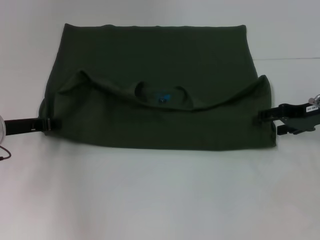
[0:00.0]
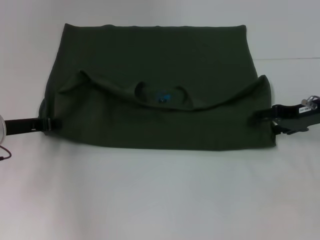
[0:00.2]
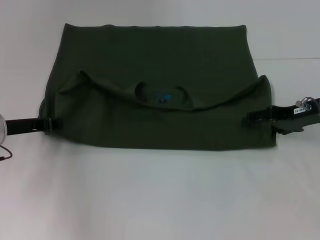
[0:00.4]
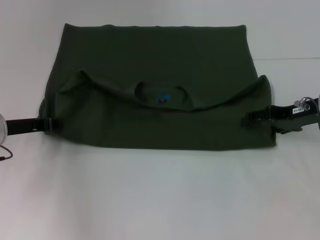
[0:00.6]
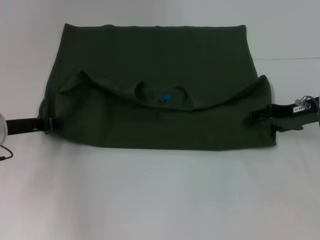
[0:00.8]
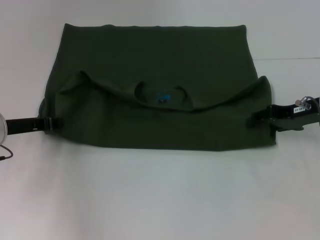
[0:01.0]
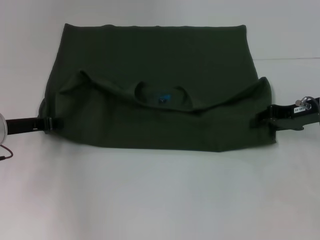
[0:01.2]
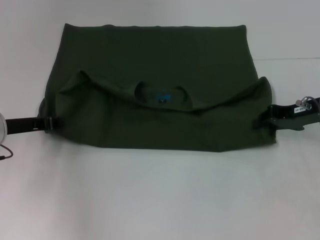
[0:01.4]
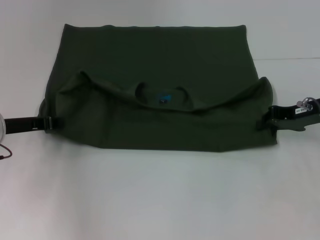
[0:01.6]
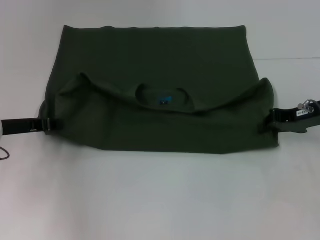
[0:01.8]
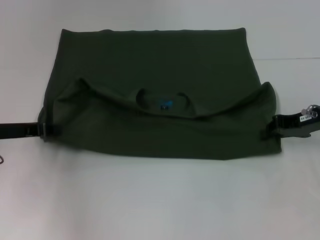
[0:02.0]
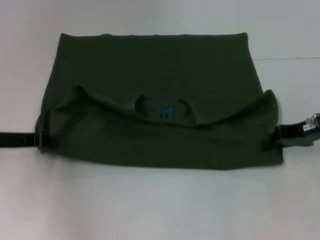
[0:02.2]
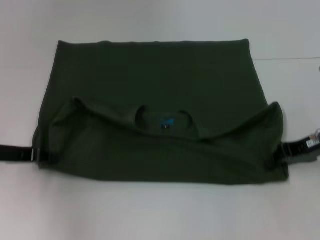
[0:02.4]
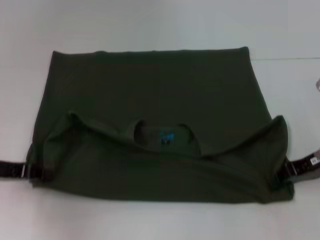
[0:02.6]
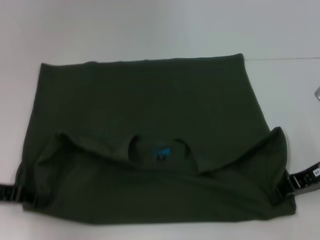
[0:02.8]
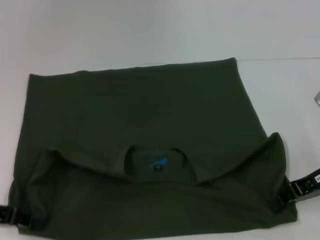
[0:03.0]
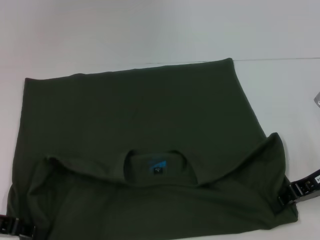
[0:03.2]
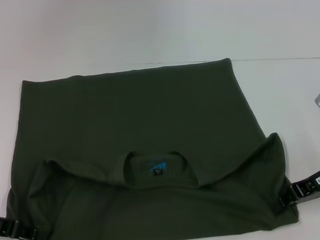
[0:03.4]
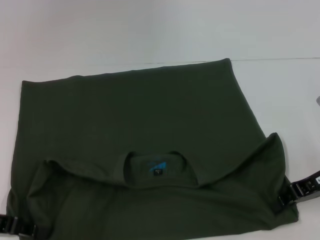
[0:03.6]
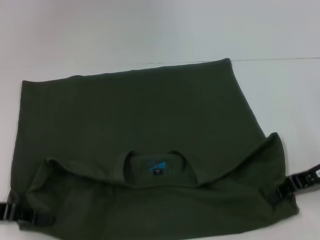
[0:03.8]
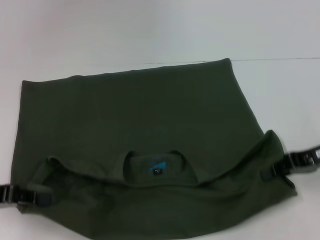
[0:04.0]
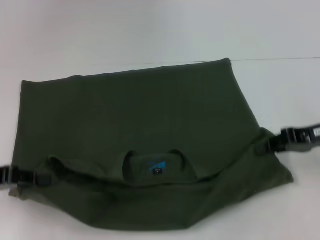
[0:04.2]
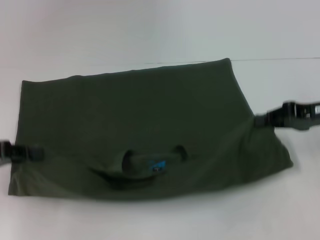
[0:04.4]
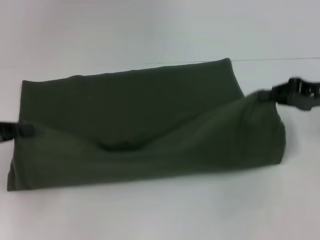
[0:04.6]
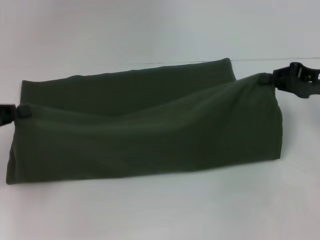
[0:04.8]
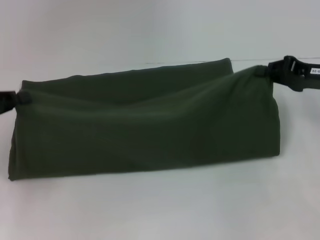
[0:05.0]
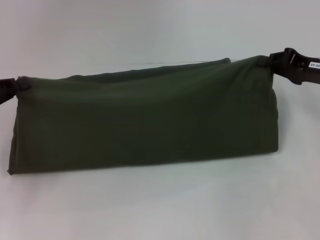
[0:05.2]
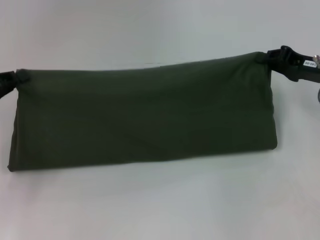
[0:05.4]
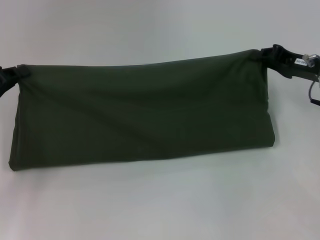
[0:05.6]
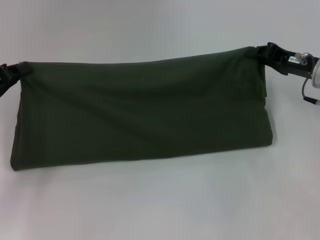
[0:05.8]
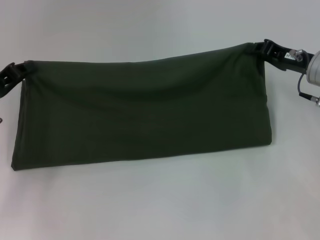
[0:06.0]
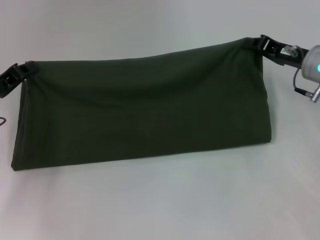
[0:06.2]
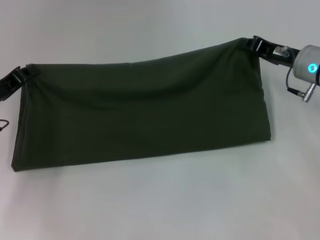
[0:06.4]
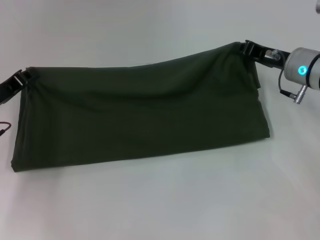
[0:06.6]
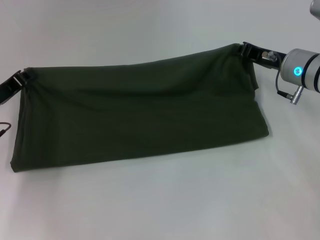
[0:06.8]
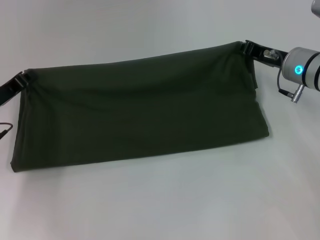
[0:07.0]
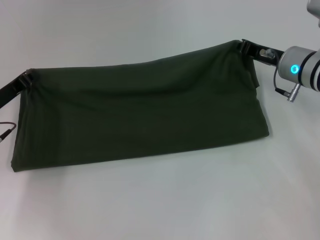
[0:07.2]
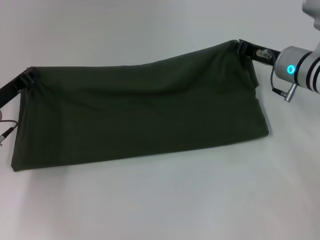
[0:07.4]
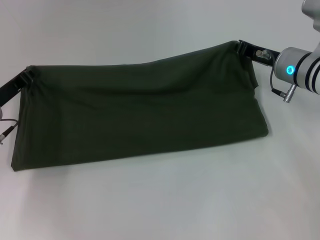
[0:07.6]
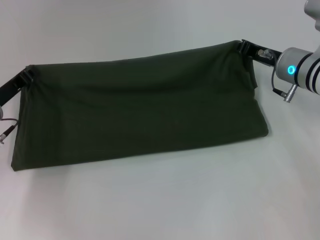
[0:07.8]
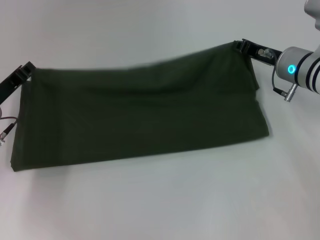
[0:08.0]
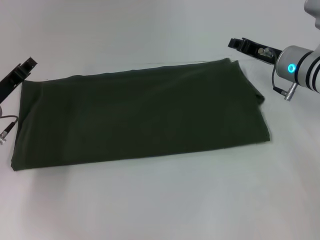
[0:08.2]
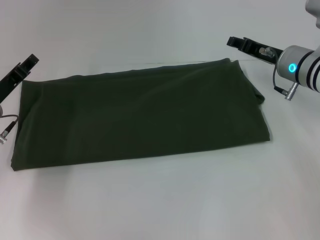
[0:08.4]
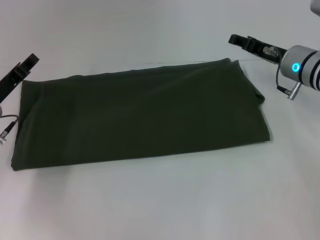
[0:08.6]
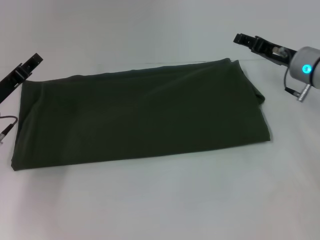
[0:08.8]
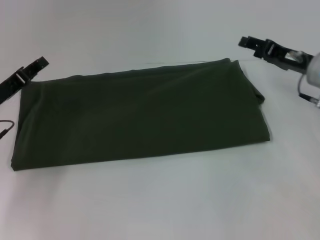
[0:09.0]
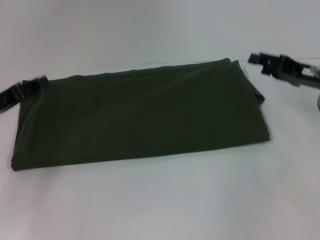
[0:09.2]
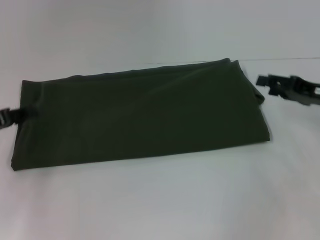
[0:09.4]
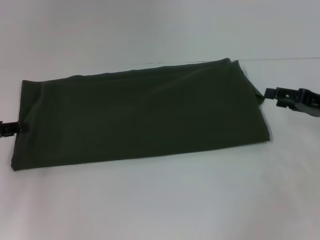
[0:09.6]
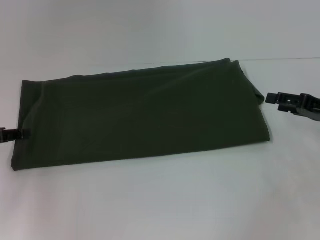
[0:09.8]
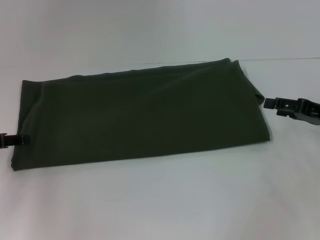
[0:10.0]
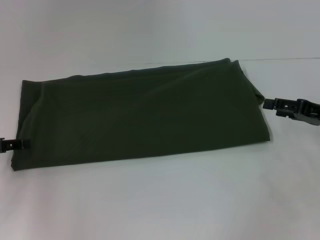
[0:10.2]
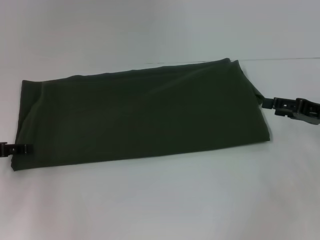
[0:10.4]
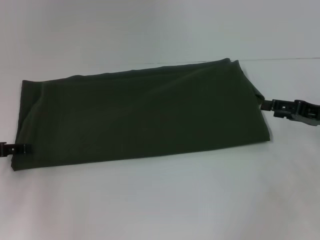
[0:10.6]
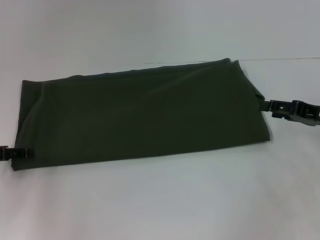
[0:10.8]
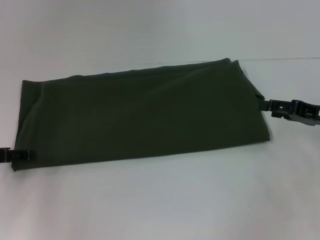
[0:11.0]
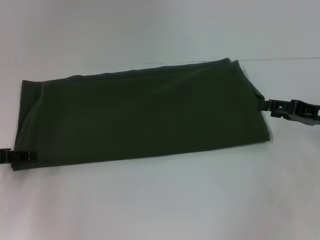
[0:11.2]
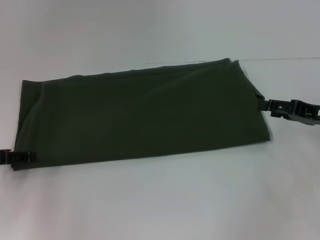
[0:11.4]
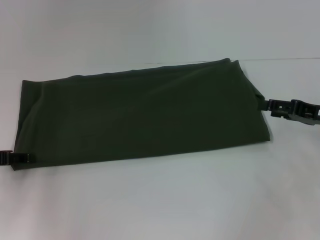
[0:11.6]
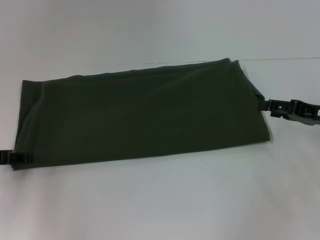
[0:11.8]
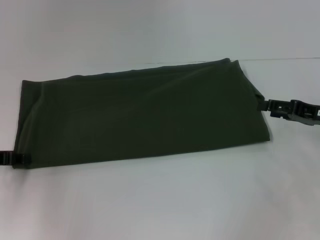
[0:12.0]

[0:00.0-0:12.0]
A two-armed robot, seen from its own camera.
Step, 0:00.0 to 0:03.4: Pull the clothes with your left hand.
Step, 0:00.0 to 0:03.4: Pull the clothes with your right hand.
Step, 0:03.6 to 0:08.2: Fold the clothes with your left hand.
Step, 0:03.6 to 0:08.2: Fold the clothes with your right hand.
0:00.0 to 0:01.6: The right gripper closes.
0:01.6 to 0:03.0: The right gripper travels backward by some 5 cm. The left gripper goes about 10 cm backward.
0:03.0 to 0:04.4: The right gripper moves some 5 cm.
0:04.4 to 0:06.0: Both grippers travel together forward, some 5 cm.
0:06.0 to 0:07.6: The right gripper ends up about 5 cm from where it was.
0:07.6 to 0:09.0: The right gripper shifts by approximately 5 cm, and opens up. Meanwhile the left gripper opens up.
0:09.0 to 0:10.4: The left gripper goes approximately 5 cm to the left. The right gripper goes about 10 cm backward and to the right.
0:10.4 to 0:12.0: The grippers move only a little.

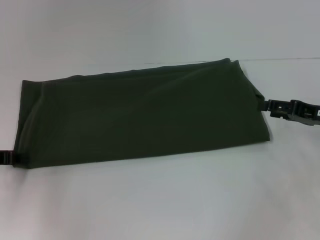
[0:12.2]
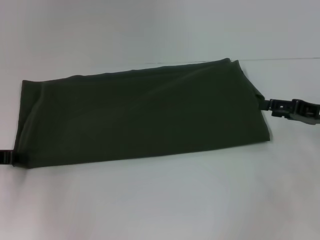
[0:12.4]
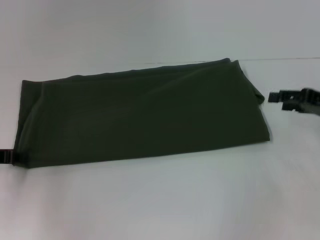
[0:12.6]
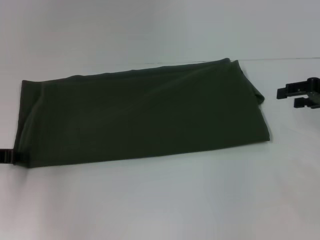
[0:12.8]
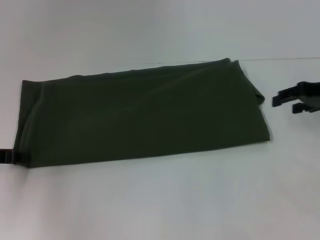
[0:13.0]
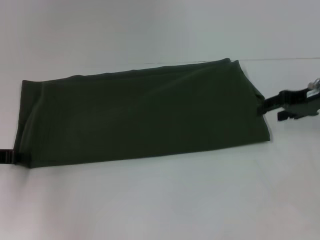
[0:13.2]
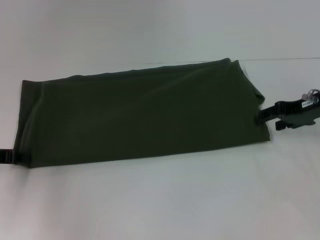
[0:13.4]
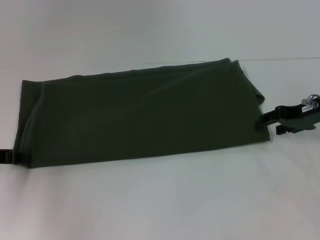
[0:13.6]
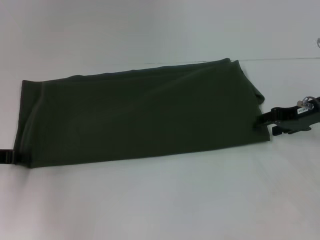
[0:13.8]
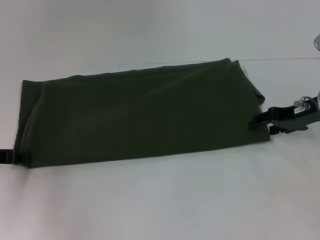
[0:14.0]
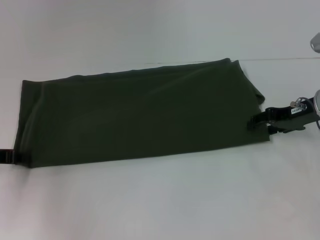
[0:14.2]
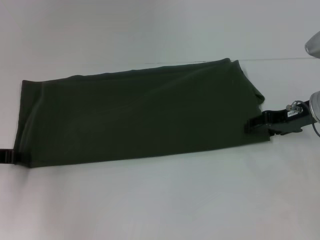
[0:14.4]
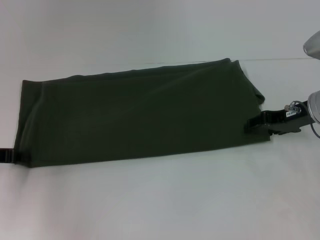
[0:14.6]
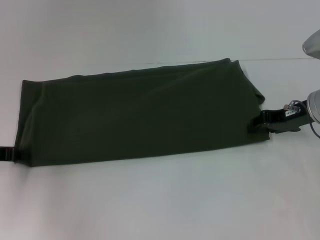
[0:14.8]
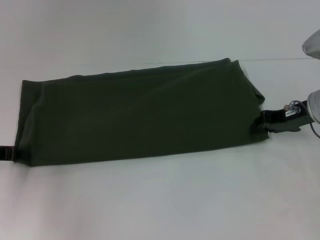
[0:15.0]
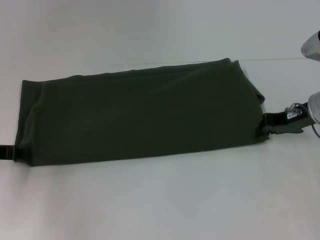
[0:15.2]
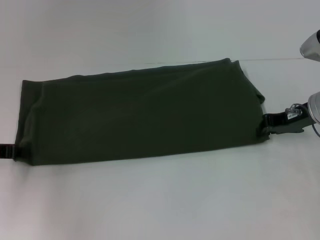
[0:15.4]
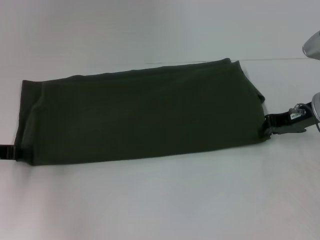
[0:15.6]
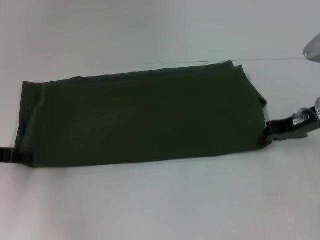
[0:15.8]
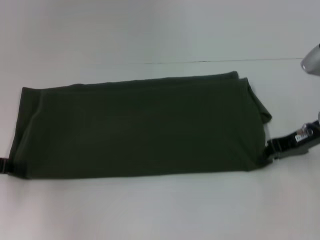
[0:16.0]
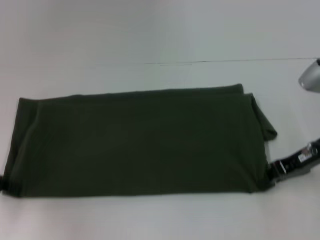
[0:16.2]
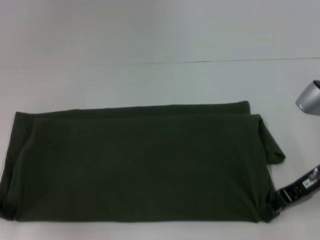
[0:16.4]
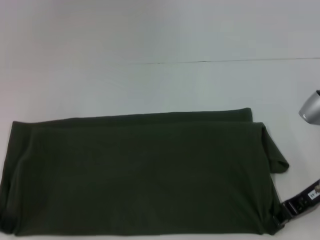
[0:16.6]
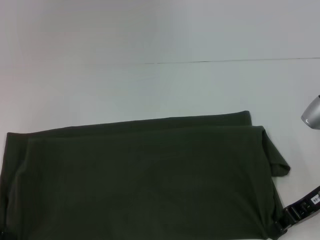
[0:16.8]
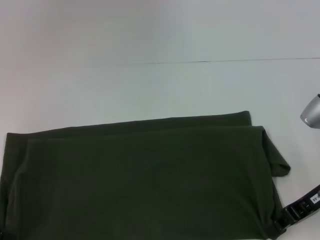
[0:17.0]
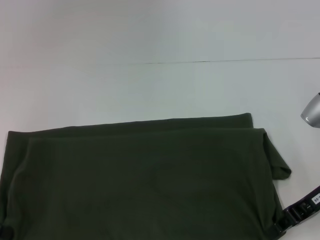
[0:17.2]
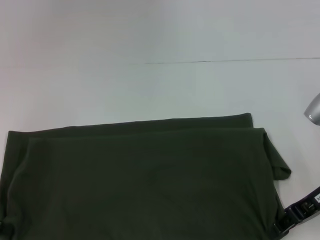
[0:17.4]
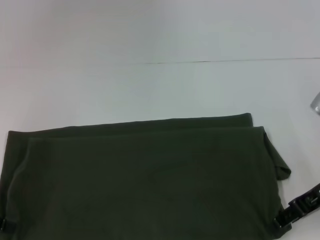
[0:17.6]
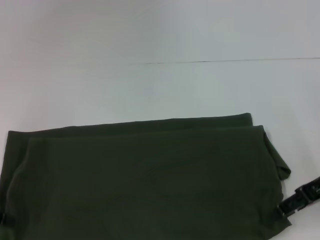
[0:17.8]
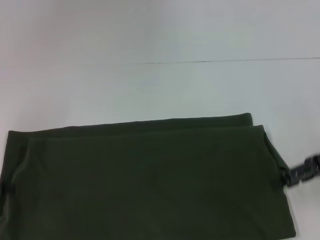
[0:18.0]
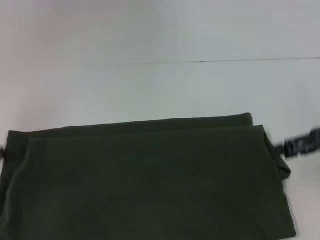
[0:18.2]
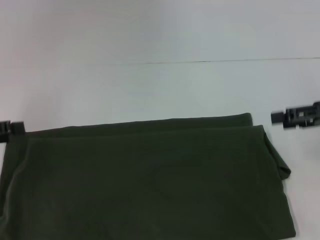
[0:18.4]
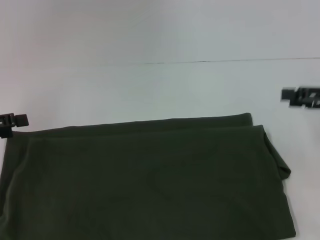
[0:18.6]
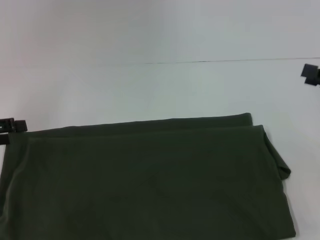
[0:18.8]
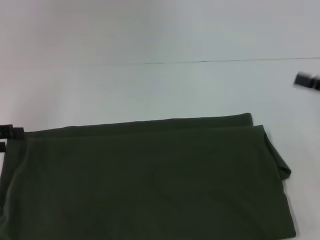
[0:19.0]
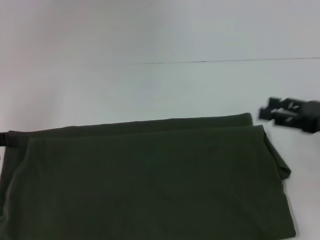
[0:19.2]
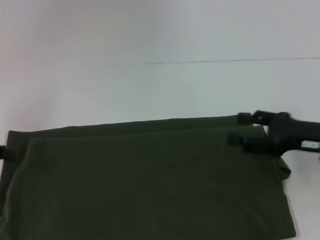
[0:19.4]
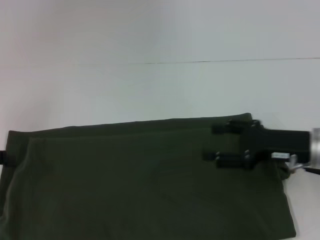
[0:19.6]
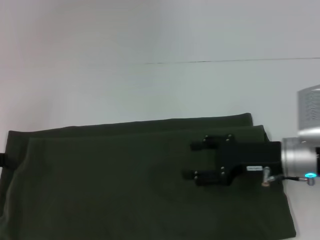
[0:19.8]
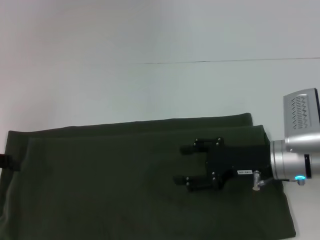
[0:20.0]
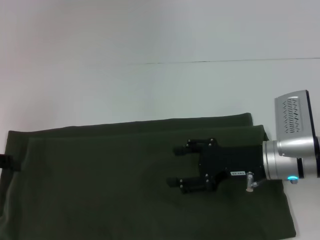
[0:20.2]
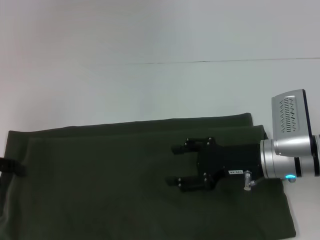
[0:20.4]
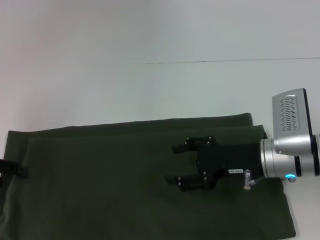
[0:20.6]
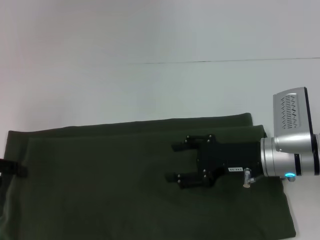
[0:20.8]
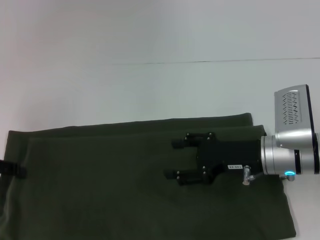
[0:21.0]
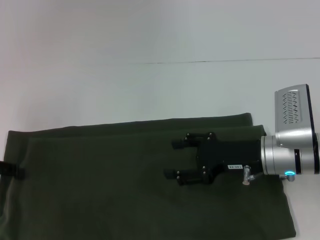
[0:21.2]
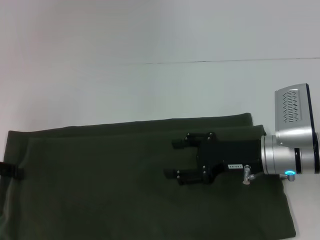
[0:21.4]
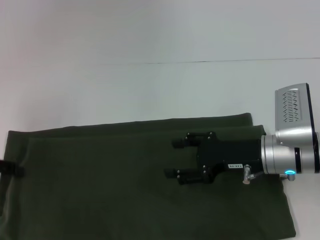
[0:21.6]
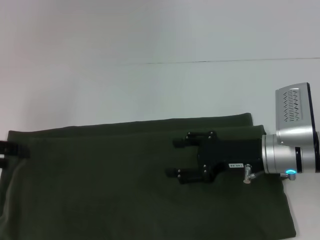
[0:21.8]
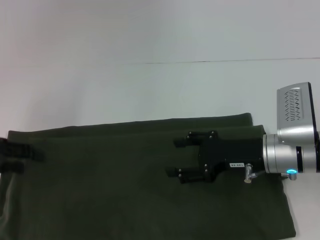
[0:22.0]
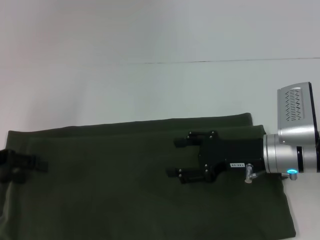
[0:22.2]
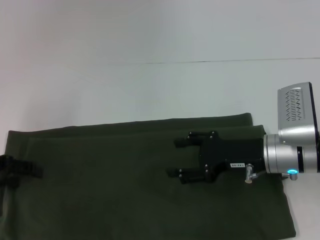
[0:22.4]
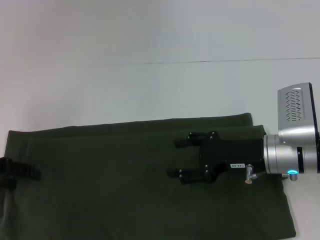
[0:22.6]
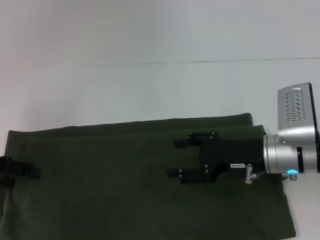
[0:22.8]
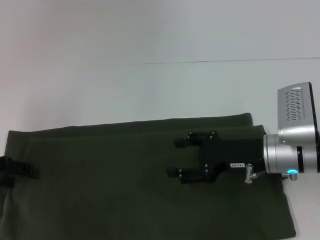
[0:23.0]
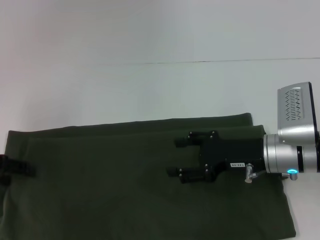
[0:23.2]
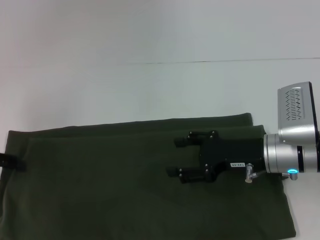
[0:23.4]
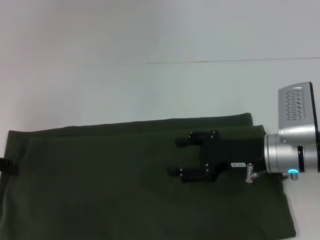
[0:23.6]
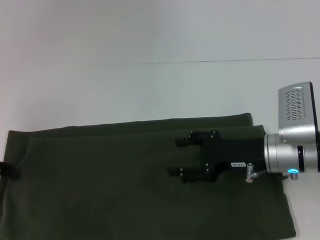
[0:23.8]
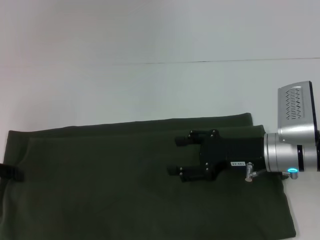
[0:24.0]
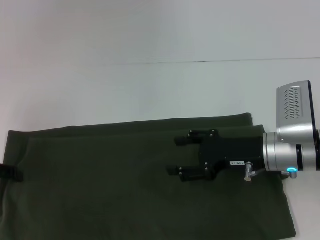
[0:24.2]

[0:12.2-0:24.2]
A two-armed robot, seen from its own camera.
Step, 0:12.2 to 0:17.8: Pull the clothes with your left hand.
Step, 0:12.2 to 0:17.8: Pull the clothes with your right hand.
0:12.2 to 0:13.8: The right gripper ends up some 5 cm from where it was.
0:13.8 to 0:15.2: The right gripper closes its fingers.
0:15.2 to 0:16.6: Both grippers travel together backward, some 5 cm.
0:16.6 to 0:18.2: The left gripper opens up. The right gripper shifts about 10 cm upward and to the right, and opens its fingers.
0:18.2 to 0:19.8: The right gripper heads to the left and downward, covering some 15 cm.
0:19.8 to 0:24.2: The grippers move only a little.
